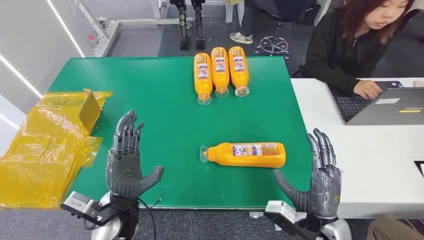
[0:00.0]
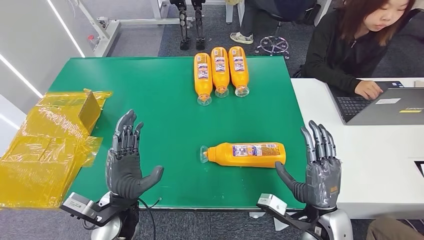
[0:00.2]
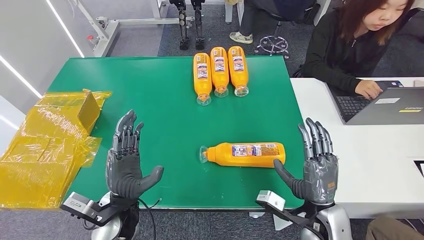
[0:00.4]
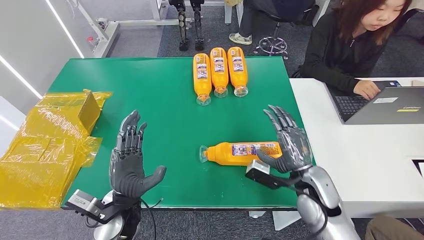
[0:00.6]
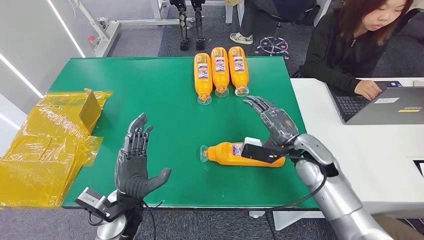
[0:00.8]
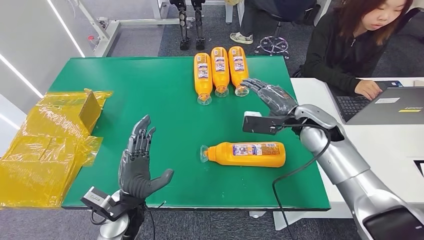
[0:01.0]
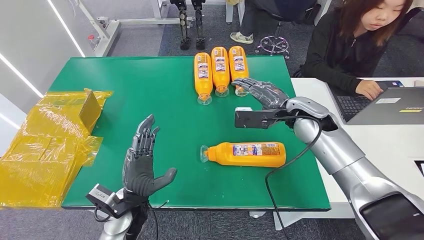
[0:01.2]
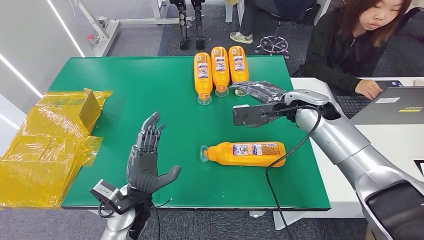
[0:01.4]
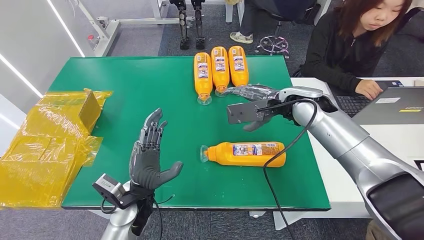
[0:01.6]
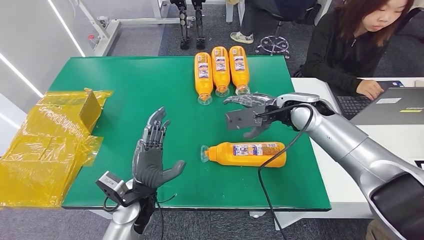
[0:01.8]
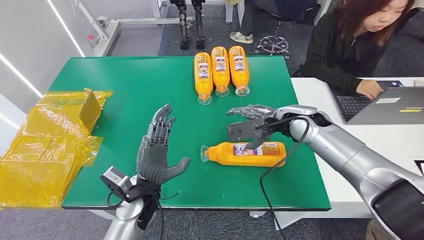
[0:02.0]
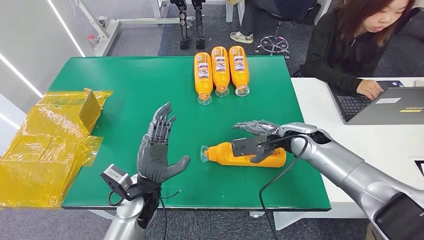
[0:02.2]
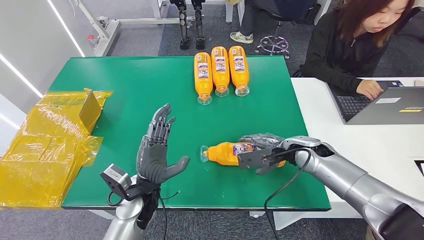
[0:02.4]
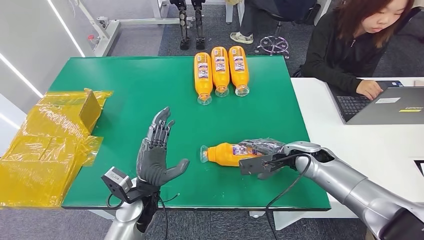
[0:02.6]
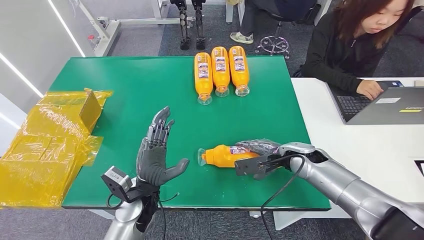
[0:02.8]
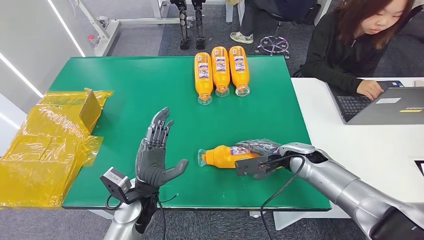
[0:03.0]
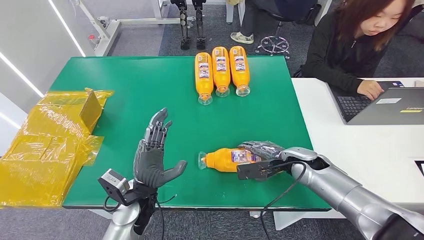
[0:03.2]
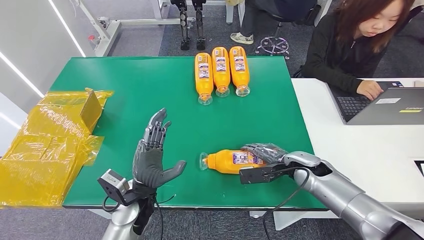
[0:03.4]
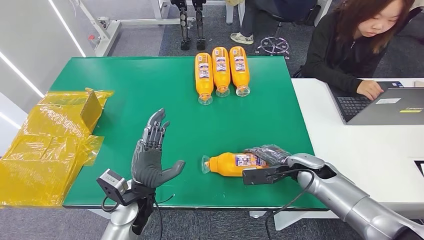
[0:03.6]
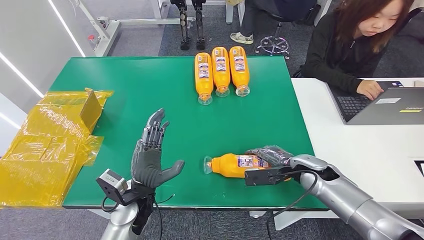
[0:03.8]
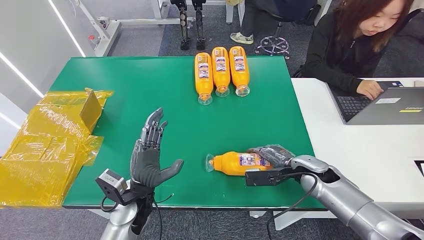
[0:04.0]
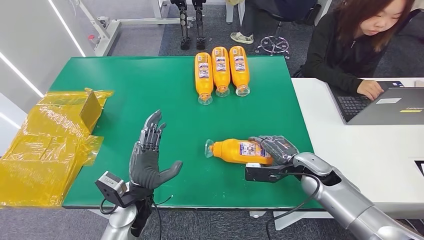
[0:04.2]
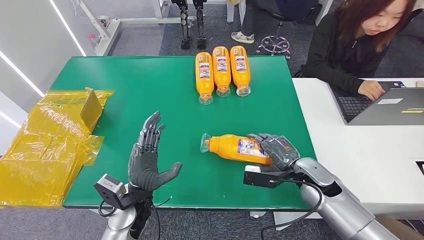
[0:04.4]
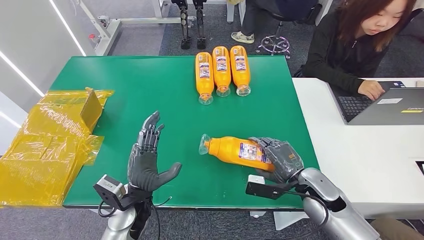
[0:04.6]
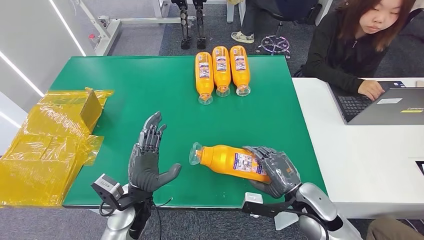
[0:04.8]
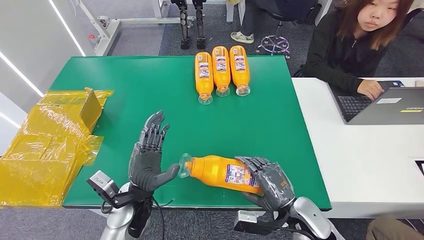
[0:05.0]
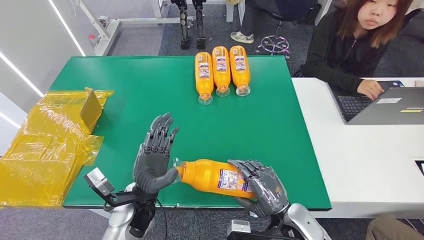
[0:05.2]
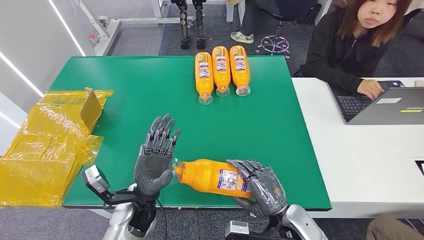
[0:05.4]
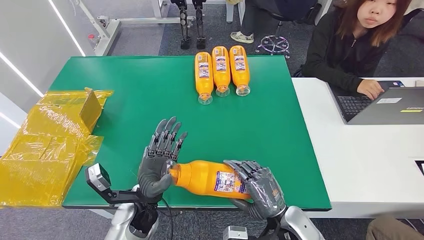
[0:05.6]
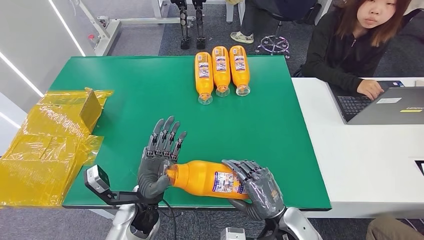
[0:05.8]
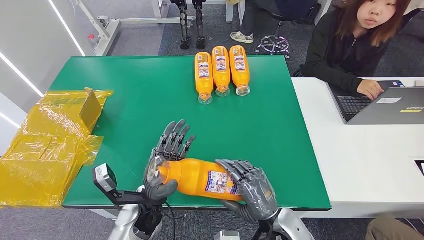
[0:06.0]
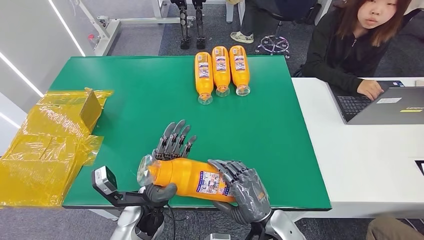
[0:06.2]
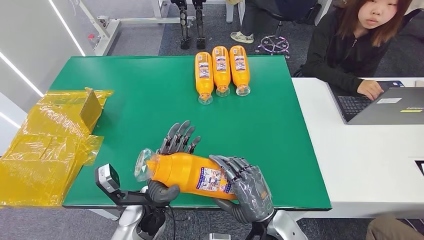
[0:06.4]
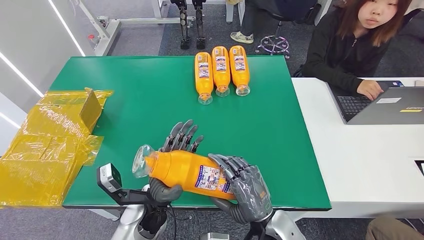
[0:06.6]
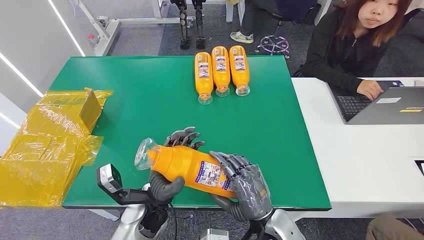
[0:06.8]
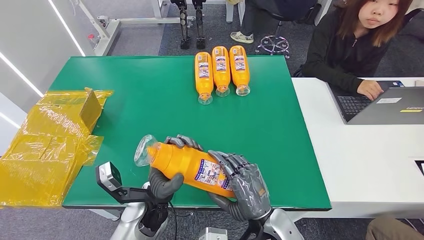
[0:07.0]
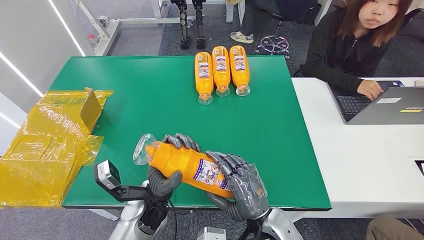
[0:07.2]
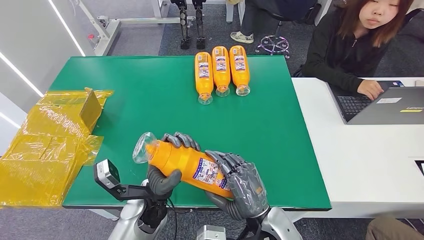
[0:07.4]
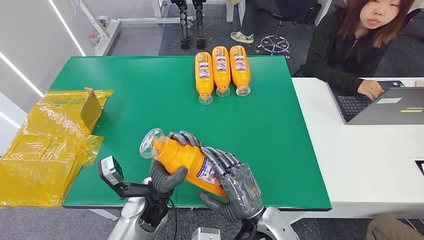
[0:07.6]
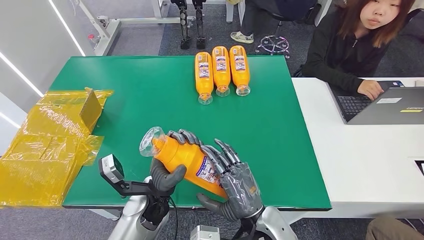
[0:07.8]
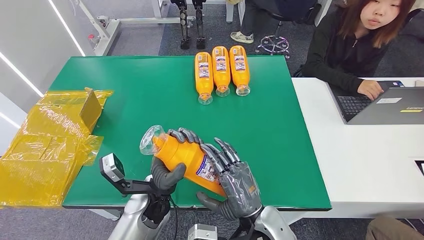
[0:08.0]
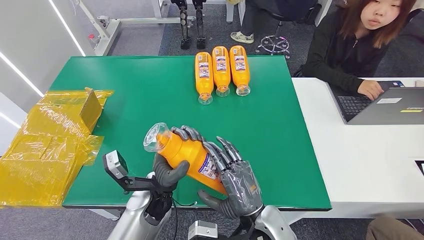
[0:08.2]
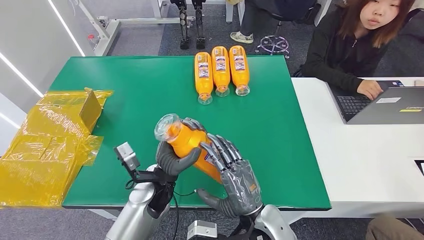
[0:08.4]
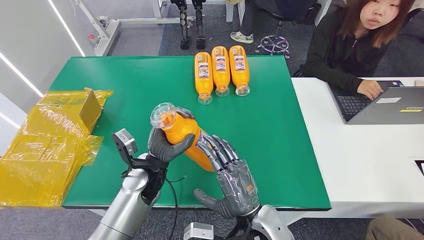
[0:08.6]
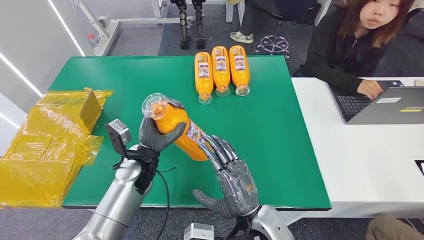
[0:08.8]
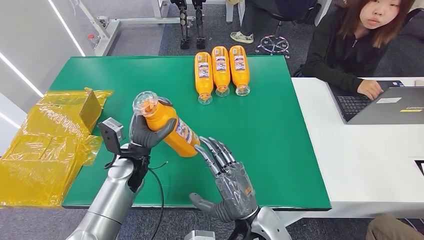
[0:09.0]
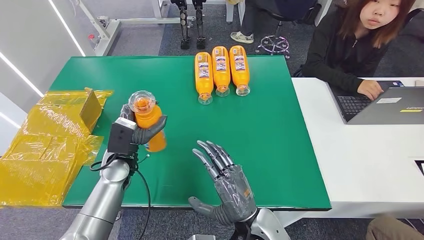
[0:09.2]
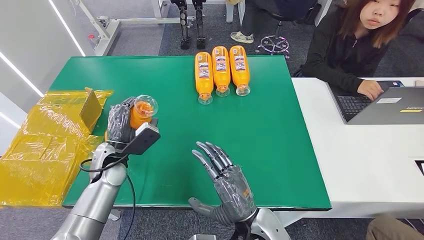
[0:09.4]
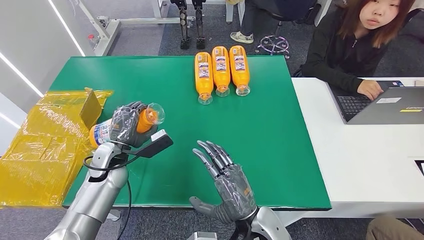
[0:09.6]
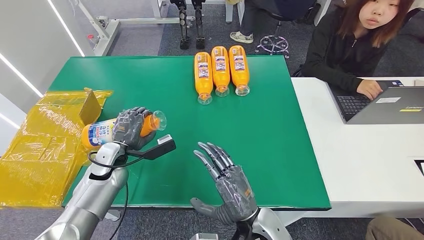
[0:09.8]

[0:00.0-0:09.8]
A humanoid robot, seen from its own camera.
Step, 0:00.0 to 0:05.2: Pick up the bottle from the table.
0:01.4 to 0:02.8: The right hand travels downward by roughly 15 cm.
0:04.2 to 0:05.6: The right hand heads backward and to the left, covering some 15 cm.
0:05.6 to 0:07.0: The right hand travels to the left by about 5 cm.
0:07.0 to 0:08.4: There are only small adjustments of the hands.
0:08.4 to 0:09.8: The left hand goes roughly 20 cm to the left and forward.

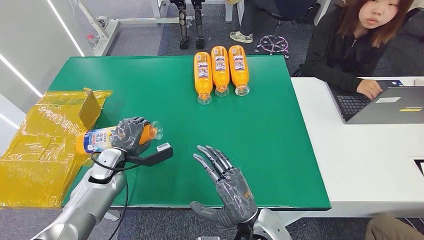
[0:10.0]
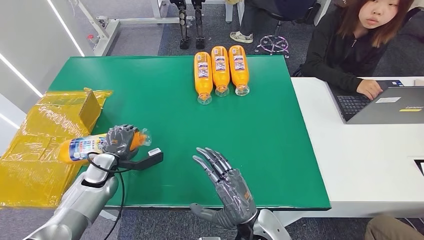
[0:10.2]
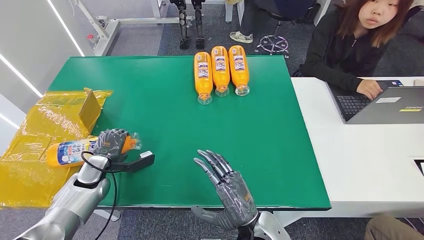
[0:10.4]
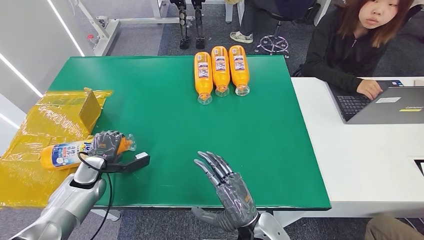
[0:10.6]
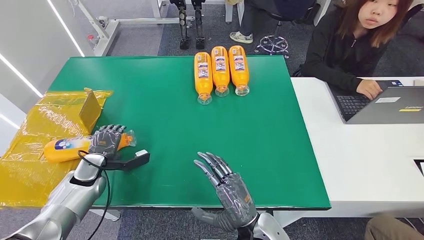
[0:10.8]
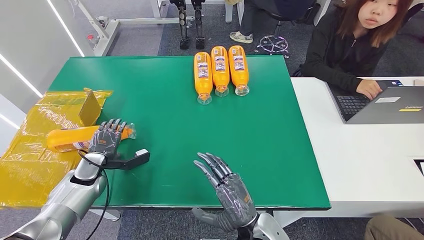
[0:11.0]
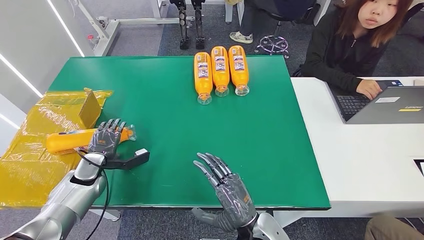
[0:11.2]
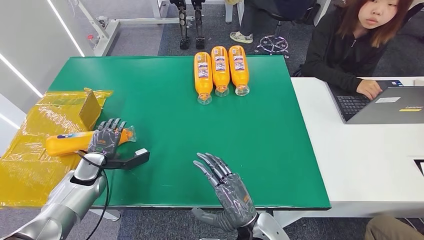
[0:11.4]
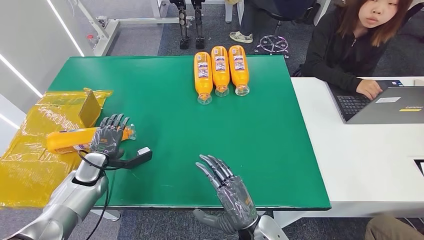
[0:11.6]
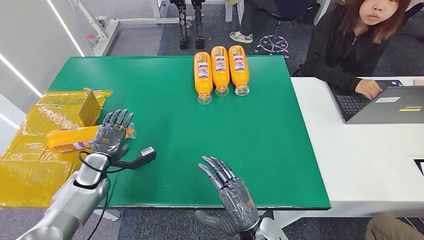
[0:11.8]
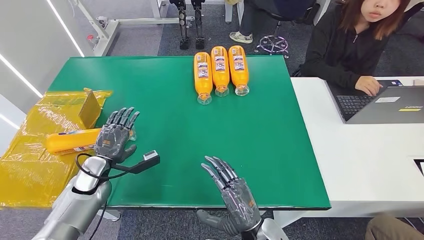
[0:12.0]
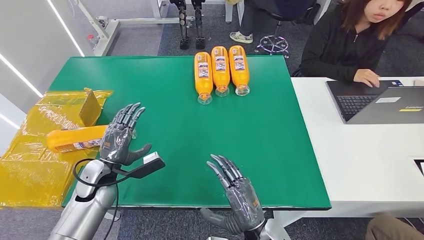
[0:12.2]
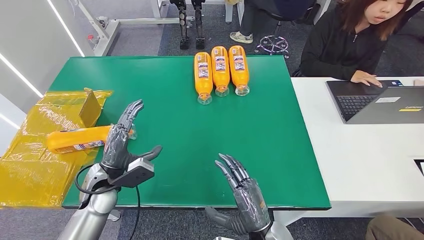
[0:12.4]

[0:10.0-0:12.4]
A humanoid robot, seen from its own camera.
Step, 0:10.0 to 0:12.4: Turn the bottle to the front side.
0:10.0 to 0:11.2: The left hand shifts some 10 cm to the left.
0:11.2 to 0:12.4: The left hand goes roughly 10 cm to the right.
